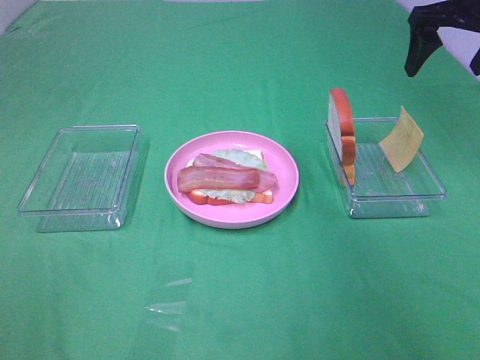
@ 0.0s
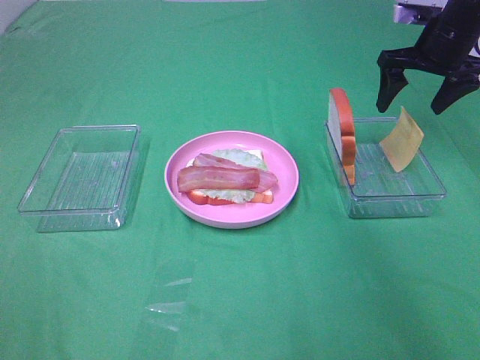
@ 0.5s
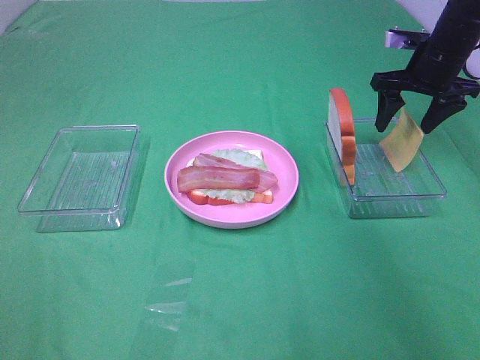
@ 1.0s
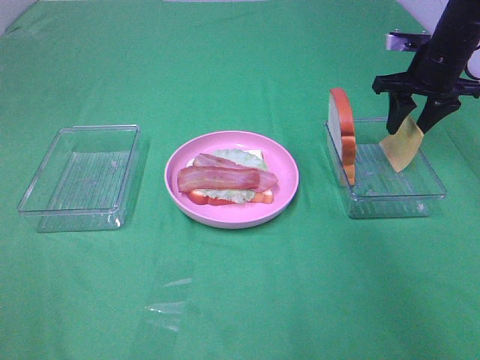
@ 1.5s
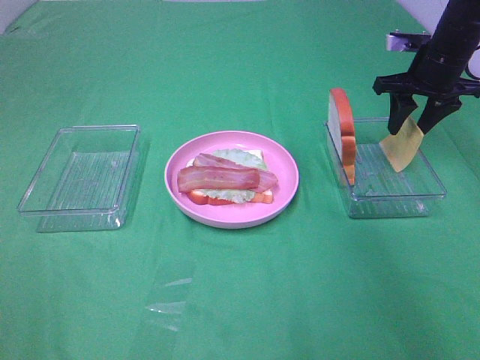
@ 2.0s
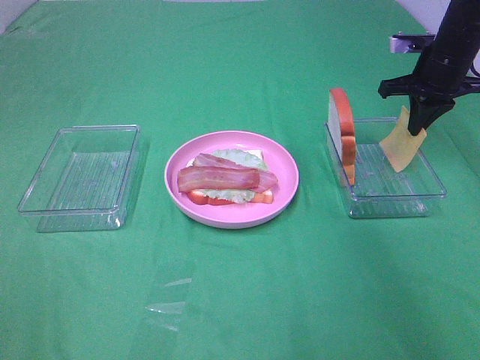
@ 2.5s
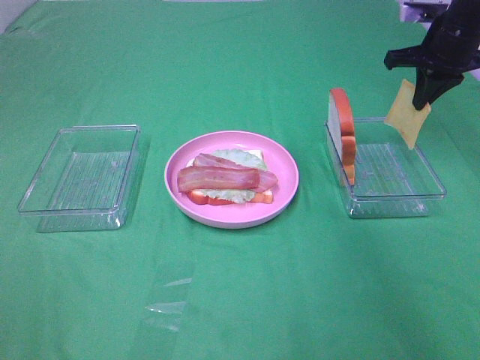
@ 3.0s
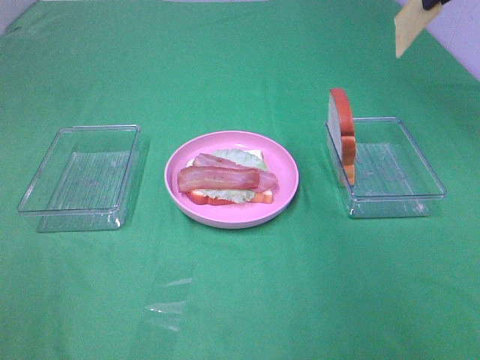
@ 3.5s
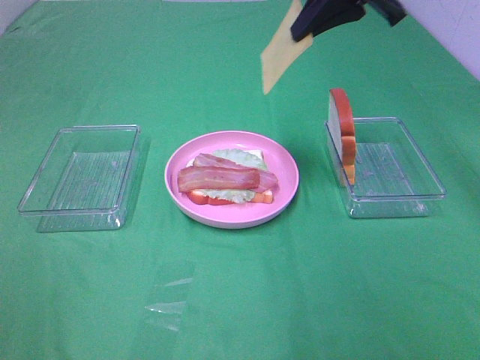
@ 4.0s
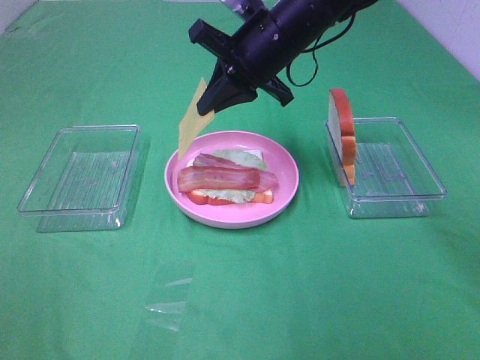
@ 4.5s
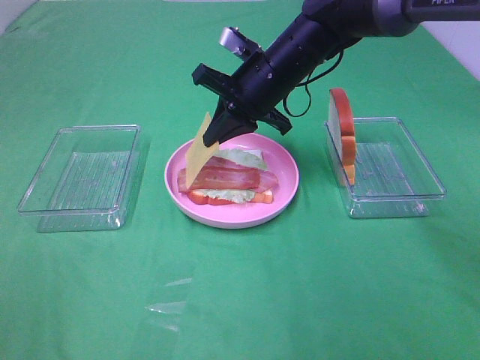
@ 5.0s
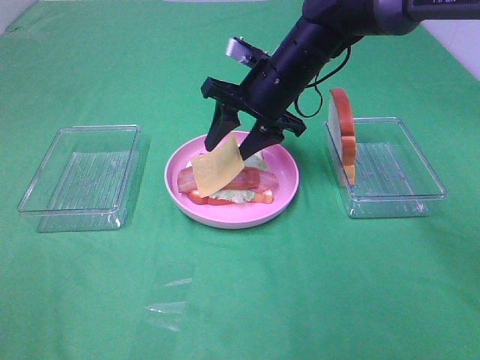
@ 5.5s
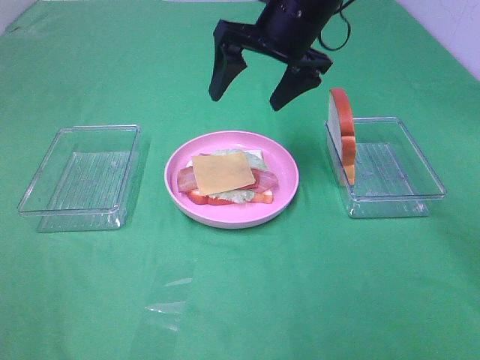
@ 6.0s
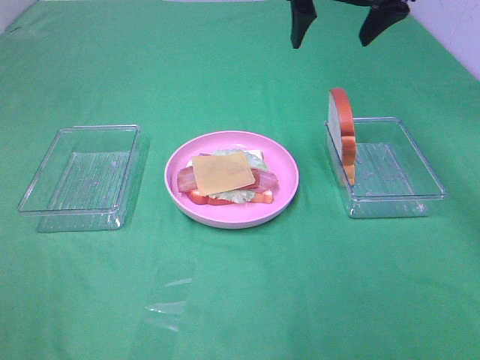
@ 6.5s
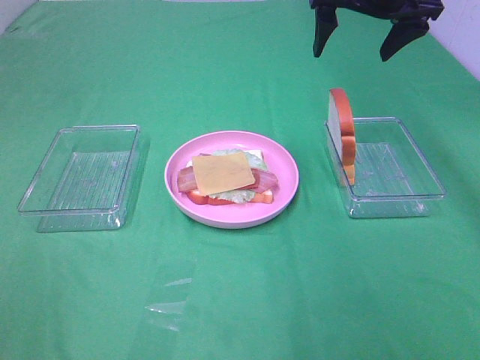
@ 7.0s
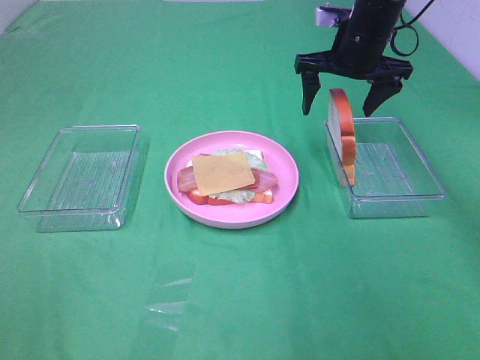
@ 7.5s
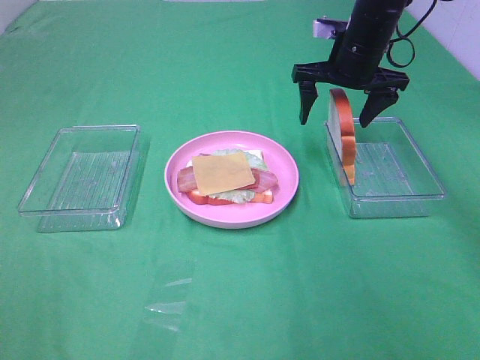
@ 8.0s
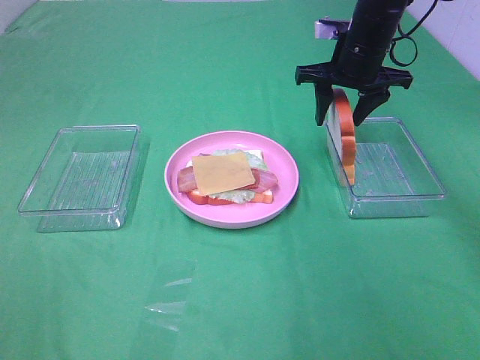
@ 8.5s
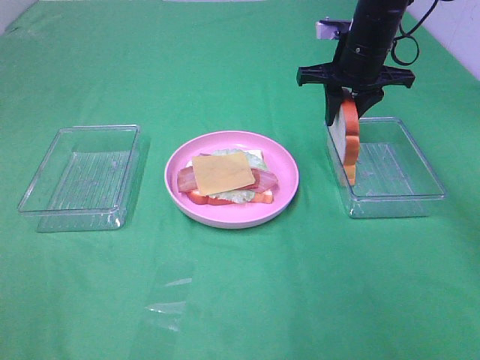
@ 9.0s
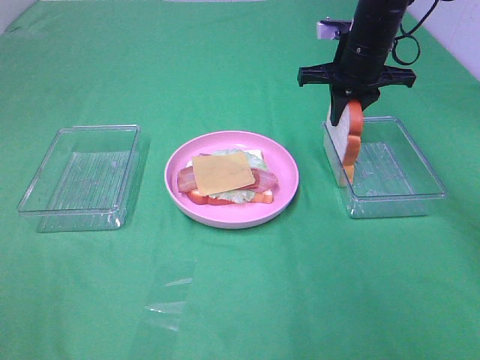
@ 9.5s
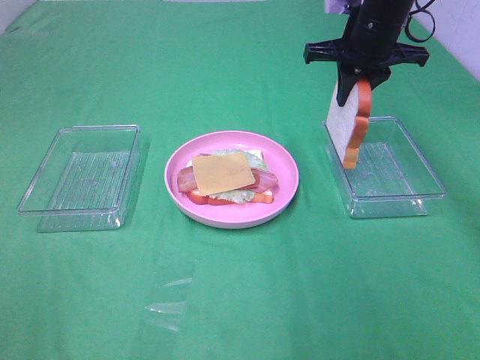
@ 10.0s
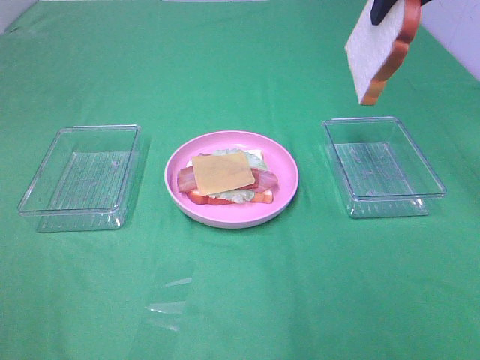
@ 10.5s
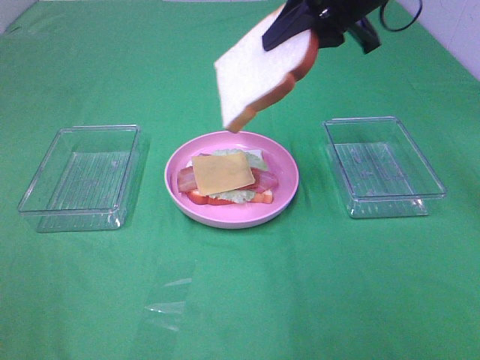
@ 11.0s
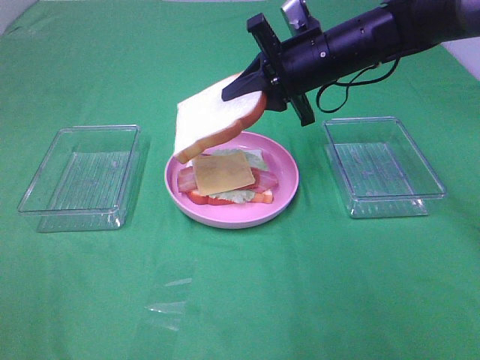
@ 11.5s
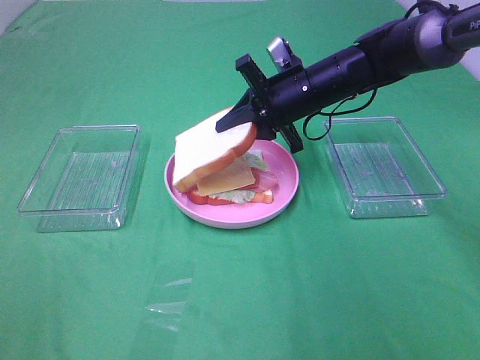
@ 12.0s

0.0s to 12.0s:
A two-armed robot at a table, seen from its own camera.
Task of the whole recording: Make sandwiches.
Step, 0.0s to 2.5s: Right hand:grab the cheese slice.
Step, 3.0s to 5.5s: Right hand:place the cheese slice on top of the bacon.
Step, 6.0s to 9.5s: Right hand:grab the bread slice.
0.0s to 2.0s: The right gripper moves downward, approximately 10 cm, and closes.
2.0s to 4.0s: The right gripper goes about 20 cm upward, to the left and backward, and closes.
4.0s to 6.0s: The right gripper heads to the left and downward, covering approximately 10 cm, and opens its fingers.
6.0s to 8.0s: The right gripper shifts roughly 15 cm to the right, downward and forward.
8.0s to 10.0s: The right gripper closes up.
10.0s to 12.0s: The right gripper goes approximately 10 cm downward and to the left.

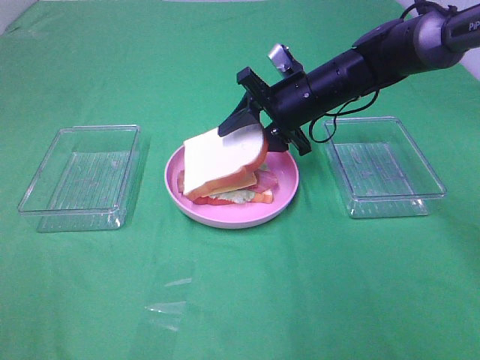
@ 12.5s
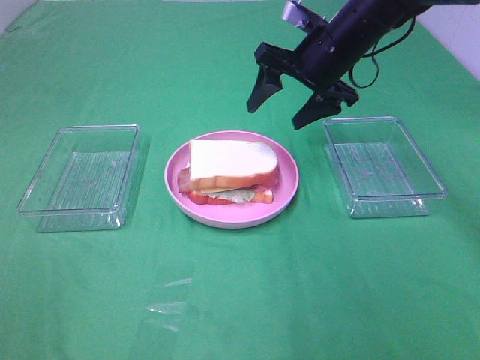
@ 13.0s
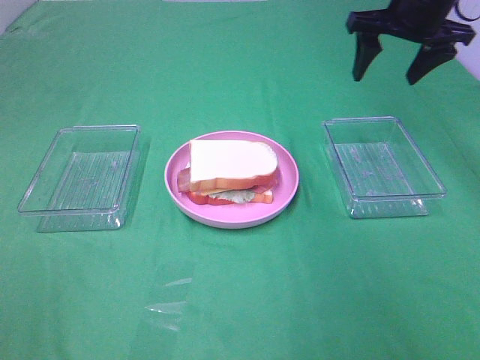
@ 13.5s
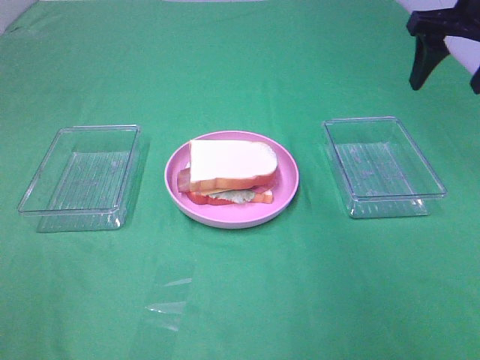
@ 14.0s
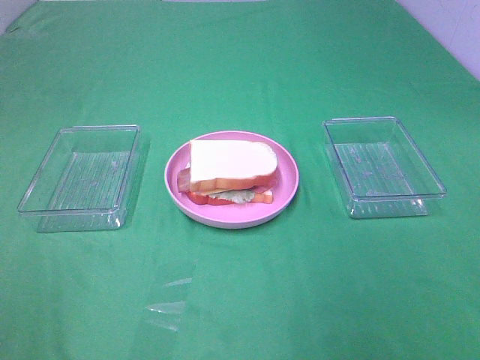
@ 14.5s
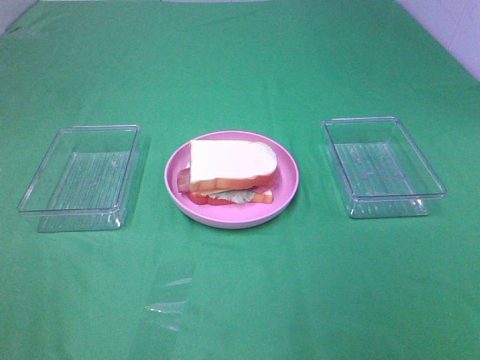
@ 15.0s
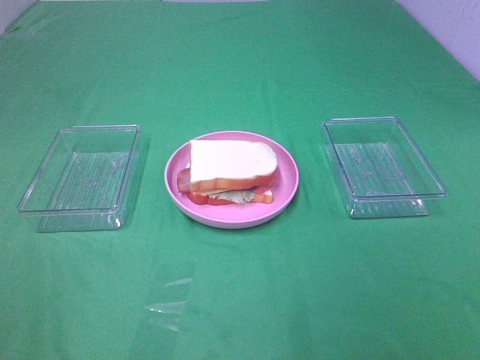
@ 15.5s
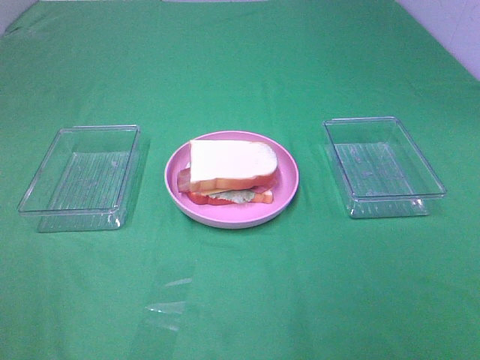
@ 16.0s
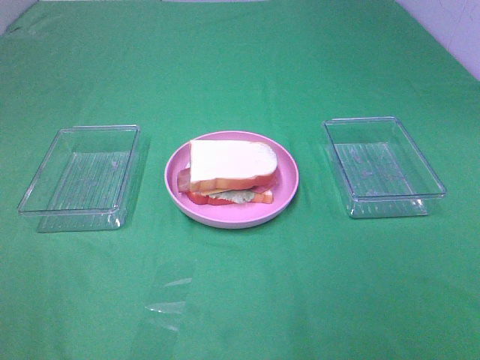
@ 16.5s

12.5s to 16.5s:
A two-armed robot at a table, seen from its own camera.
Task of the whole recording: Make sandwiches.
12.5s to 14.5s: The right gripper shifts some 35 cm backward, upward and to the right.

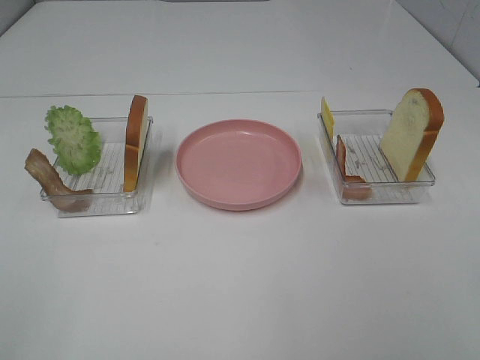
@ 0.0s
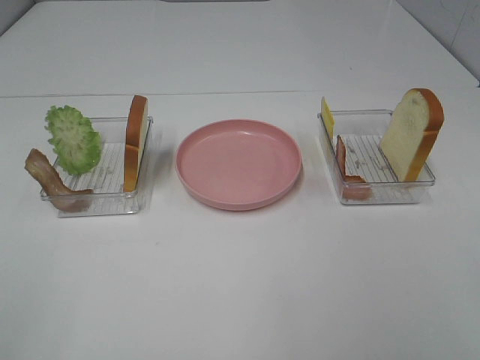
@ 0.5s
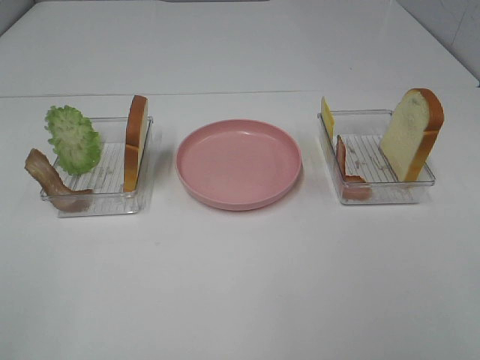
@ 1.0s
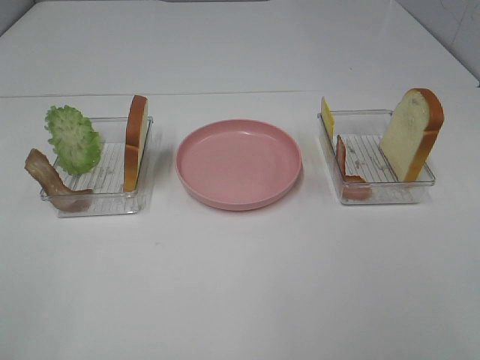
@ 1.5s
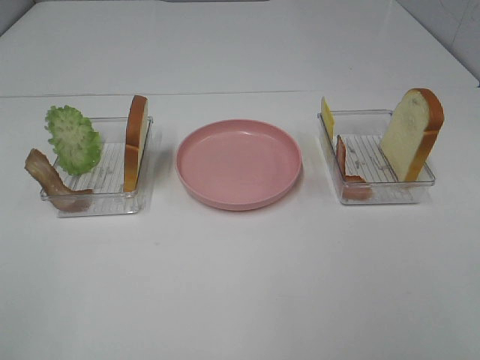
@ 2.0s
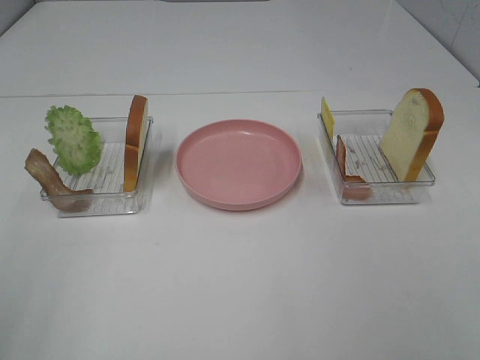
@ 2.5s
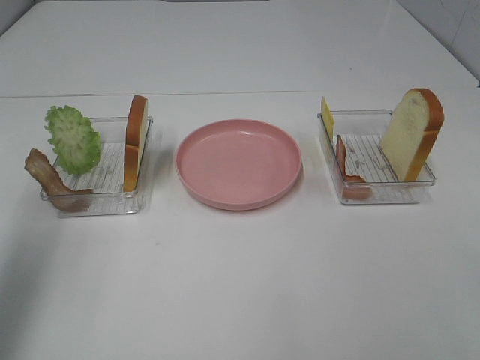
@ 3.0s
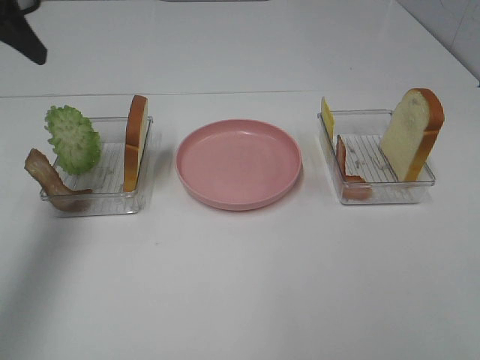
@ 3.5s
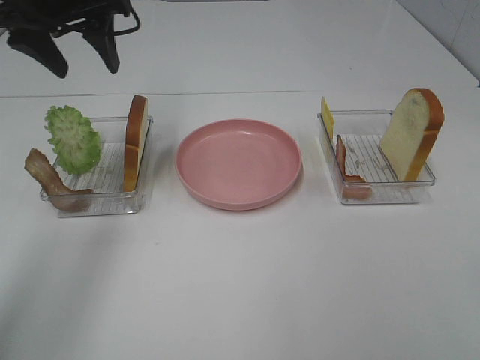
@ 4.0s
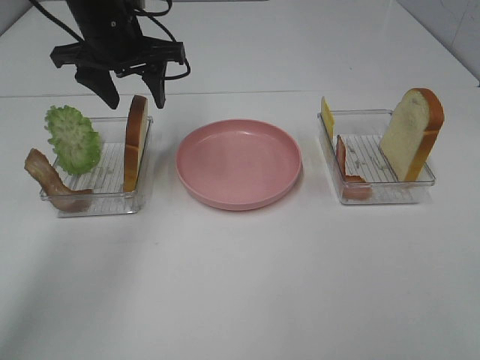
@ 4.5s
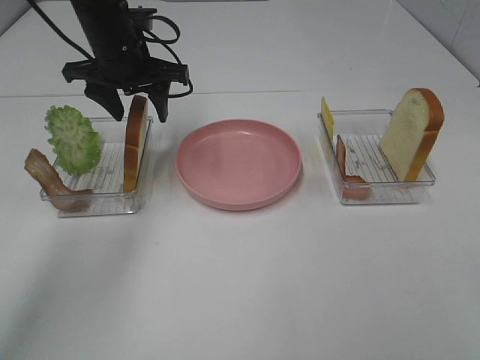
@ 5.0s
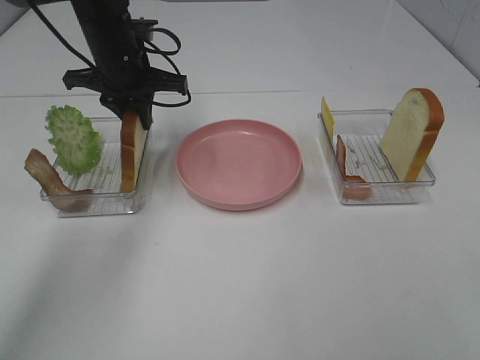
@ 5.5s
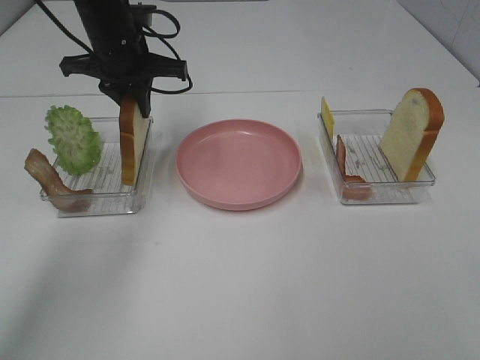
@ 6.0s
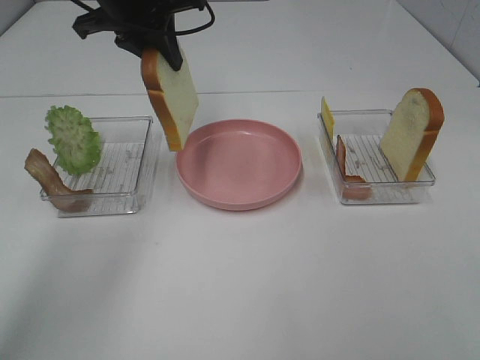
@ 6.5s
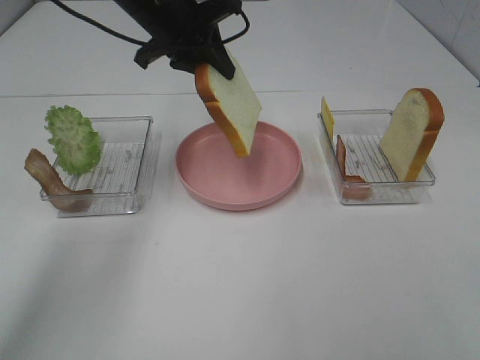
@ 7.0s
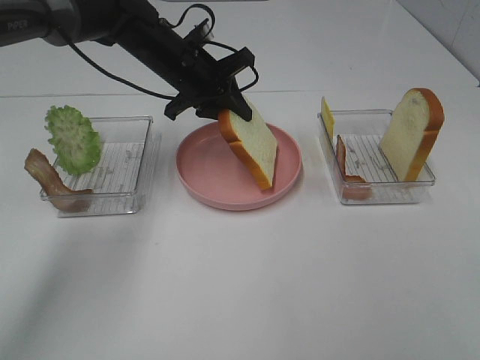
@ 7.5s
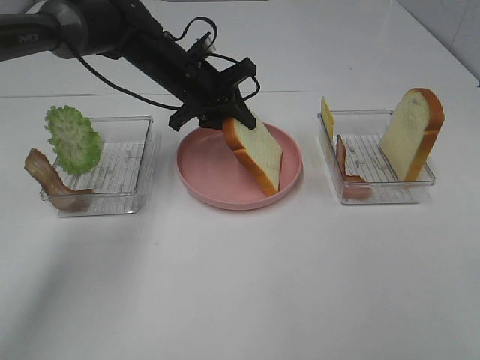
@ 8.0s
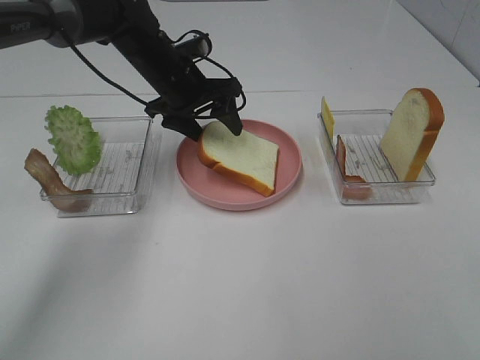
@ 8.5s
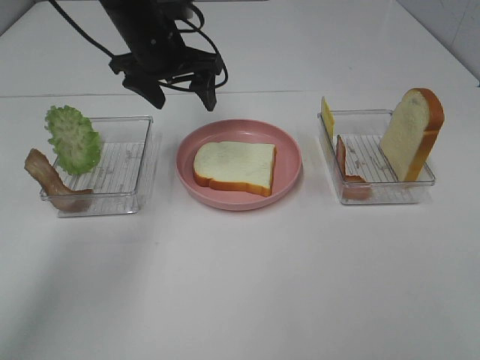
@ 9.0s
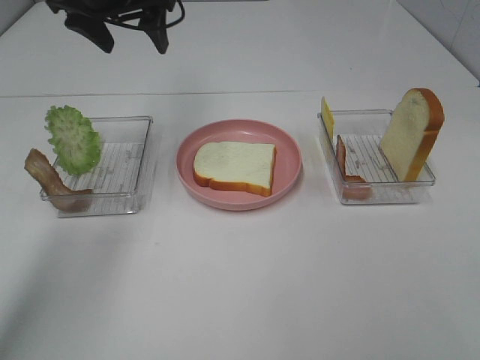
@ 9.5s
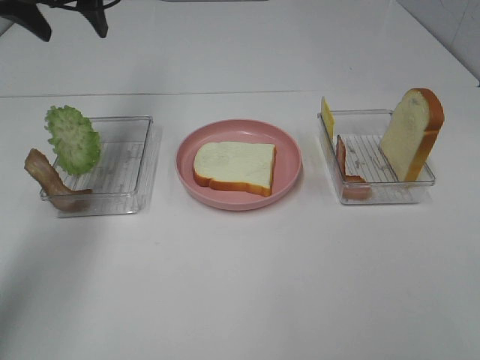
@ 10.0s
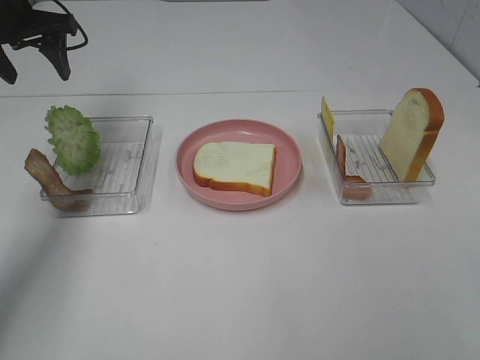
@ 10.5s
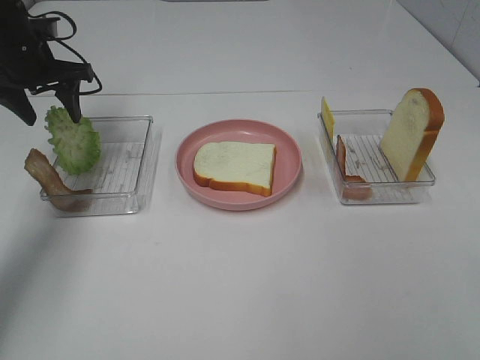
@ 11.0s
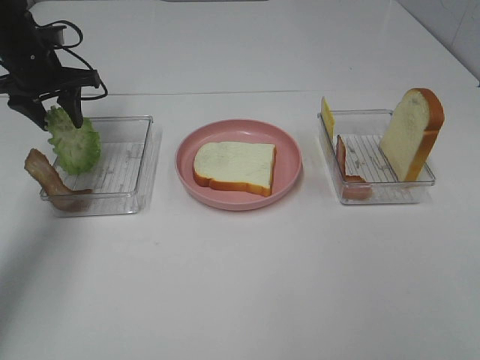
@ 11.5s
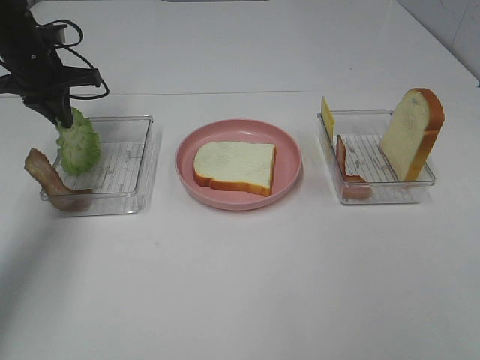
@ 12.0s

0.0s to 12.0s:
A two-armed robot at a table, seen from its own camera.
Task of the whole recording: Make sandwiches.
Step, 0.0s to 5.5s: Left hand:grab the bread slice.
Step, 6.0s to 8.5s: Left hand:place the bread slice on the plate.
Step, 9.0s to 12.0s: Left hand:grab the lettuce slice.
0.0s to 2.0s: The two grippers keep their place.
2.0s to 4.0s: The left gripper travels forward by some 40 cm.
4.0s to 6.0s: The left gripper travels downward by approximately 10 cm, and closes.
6.0s to 8.0s: The left gripper moves downward and to the right, some 10 cm.
8.0s to 10.0s: The left gripper goes some 25 cm to the left and upward, and opens up.
10.0s to 12.0s: The left gripper shifts approximately 10 cm downward, and closes.
